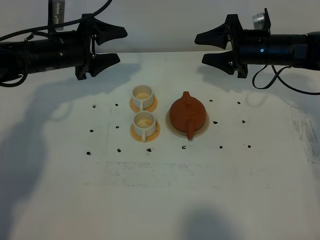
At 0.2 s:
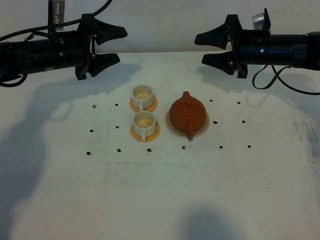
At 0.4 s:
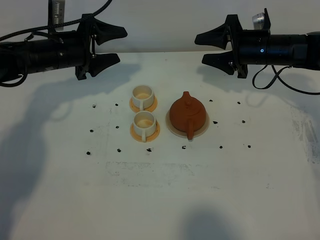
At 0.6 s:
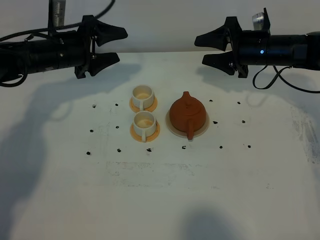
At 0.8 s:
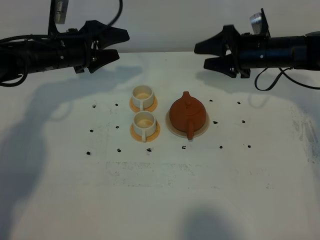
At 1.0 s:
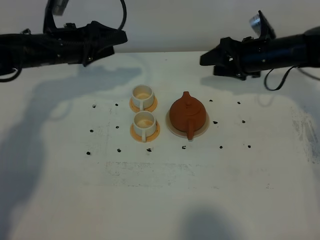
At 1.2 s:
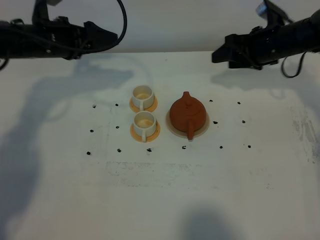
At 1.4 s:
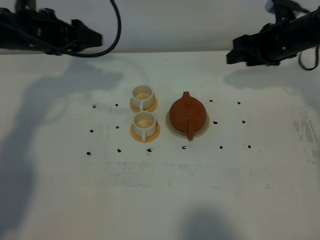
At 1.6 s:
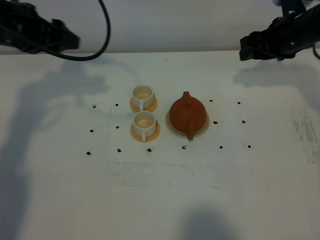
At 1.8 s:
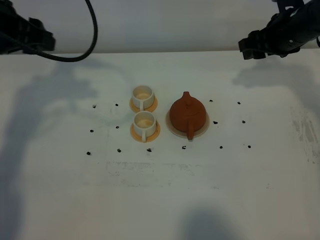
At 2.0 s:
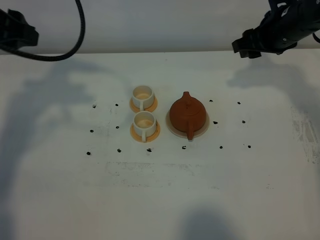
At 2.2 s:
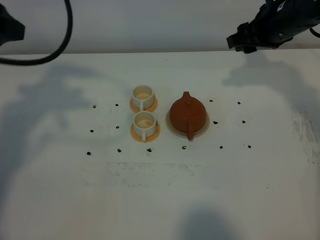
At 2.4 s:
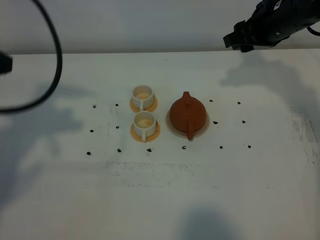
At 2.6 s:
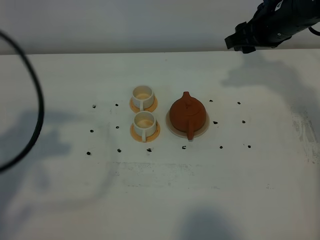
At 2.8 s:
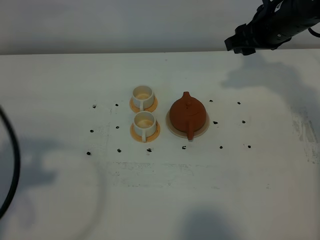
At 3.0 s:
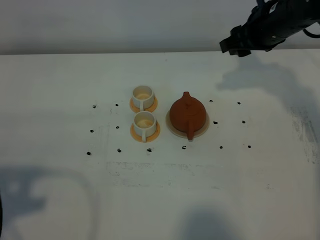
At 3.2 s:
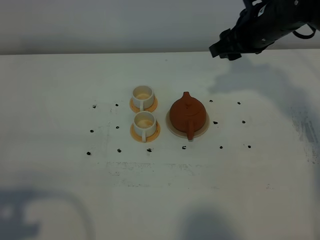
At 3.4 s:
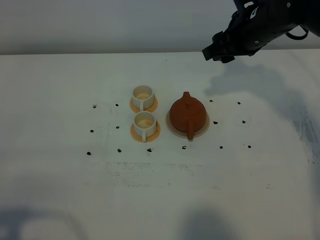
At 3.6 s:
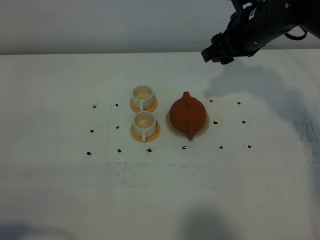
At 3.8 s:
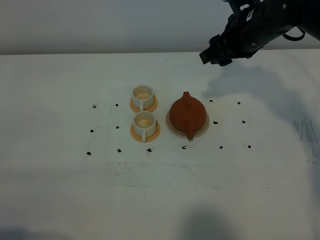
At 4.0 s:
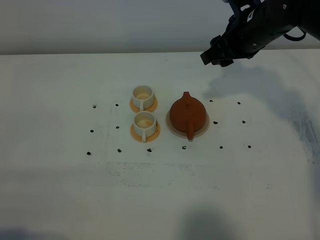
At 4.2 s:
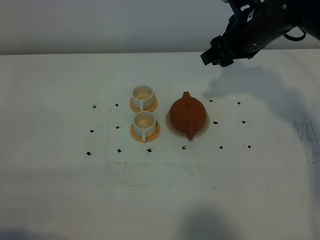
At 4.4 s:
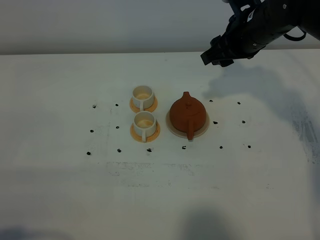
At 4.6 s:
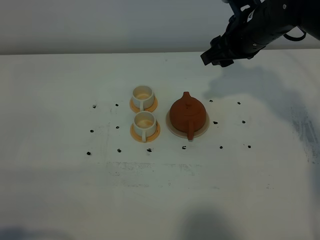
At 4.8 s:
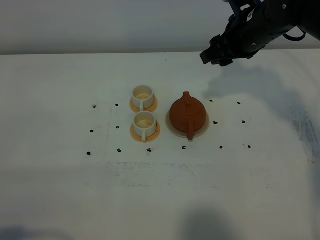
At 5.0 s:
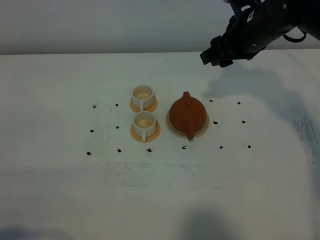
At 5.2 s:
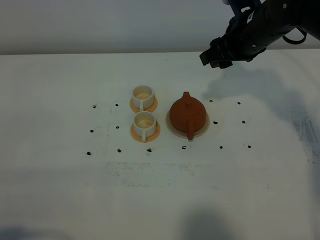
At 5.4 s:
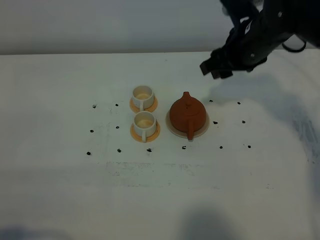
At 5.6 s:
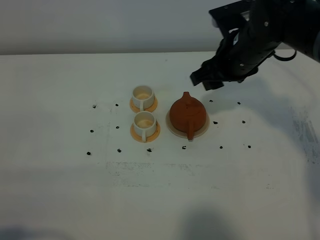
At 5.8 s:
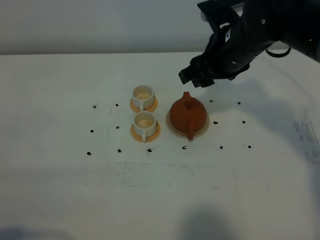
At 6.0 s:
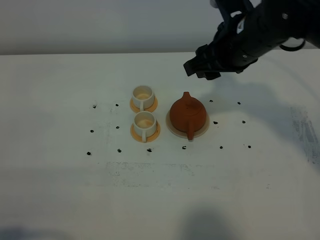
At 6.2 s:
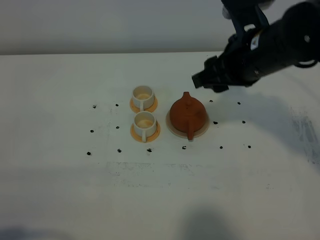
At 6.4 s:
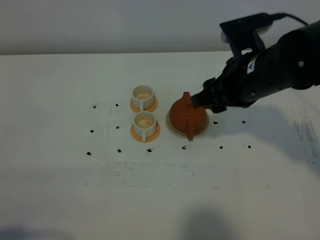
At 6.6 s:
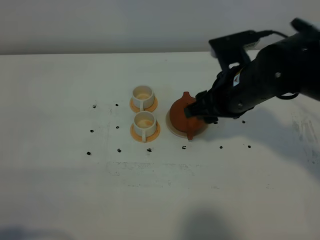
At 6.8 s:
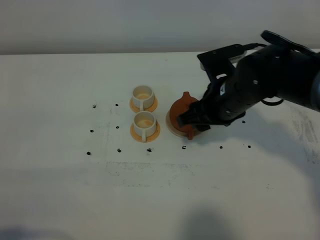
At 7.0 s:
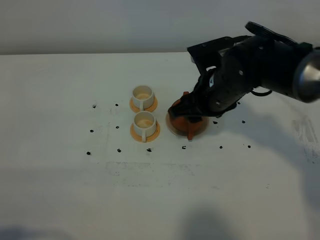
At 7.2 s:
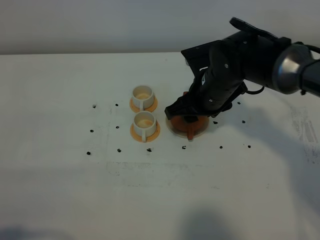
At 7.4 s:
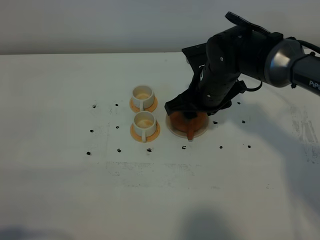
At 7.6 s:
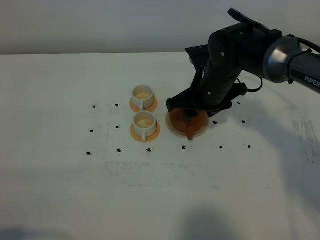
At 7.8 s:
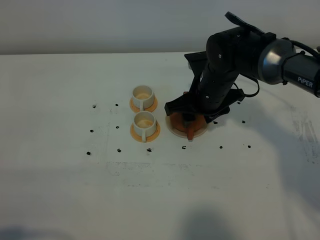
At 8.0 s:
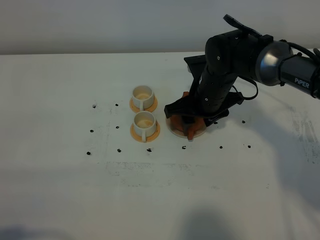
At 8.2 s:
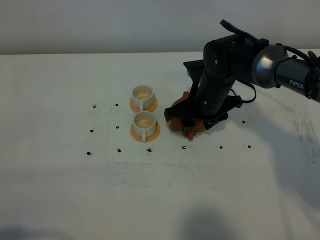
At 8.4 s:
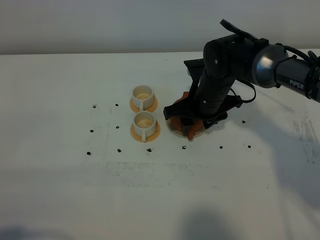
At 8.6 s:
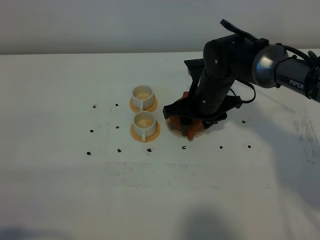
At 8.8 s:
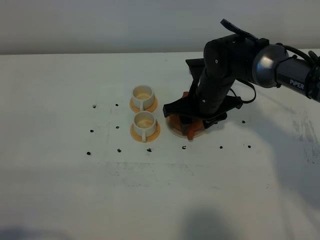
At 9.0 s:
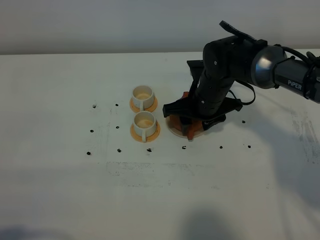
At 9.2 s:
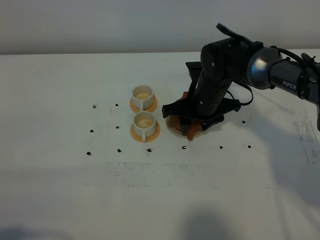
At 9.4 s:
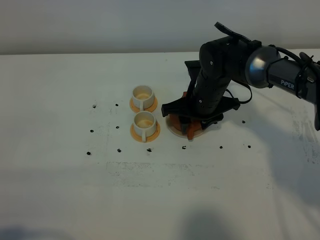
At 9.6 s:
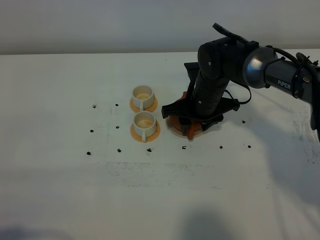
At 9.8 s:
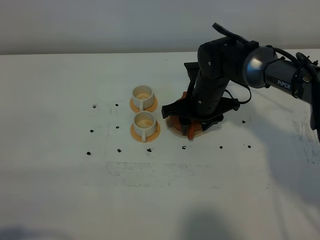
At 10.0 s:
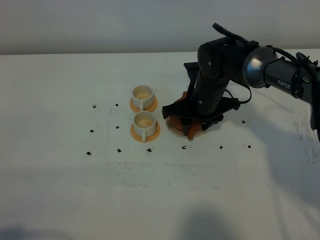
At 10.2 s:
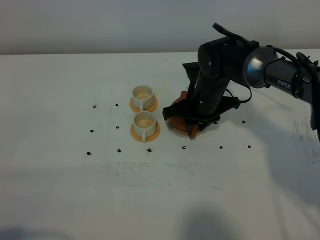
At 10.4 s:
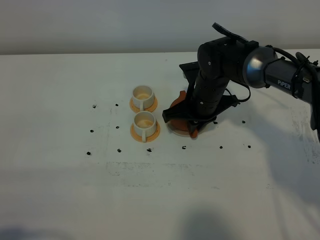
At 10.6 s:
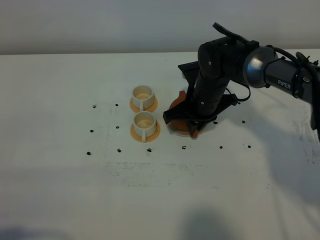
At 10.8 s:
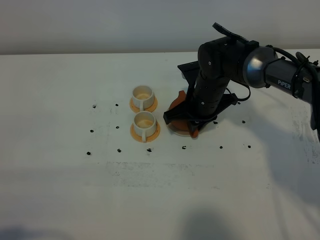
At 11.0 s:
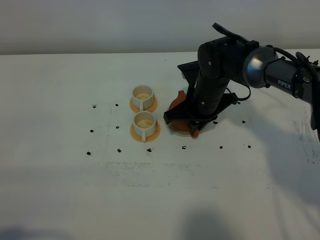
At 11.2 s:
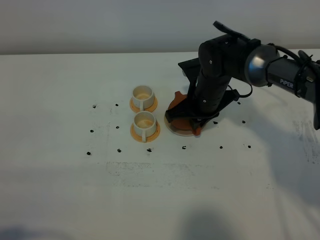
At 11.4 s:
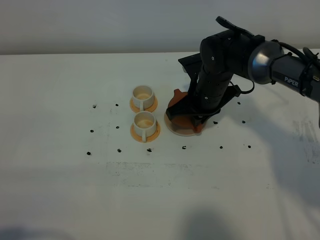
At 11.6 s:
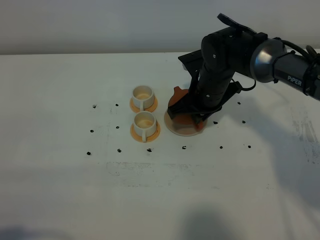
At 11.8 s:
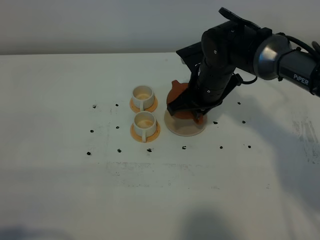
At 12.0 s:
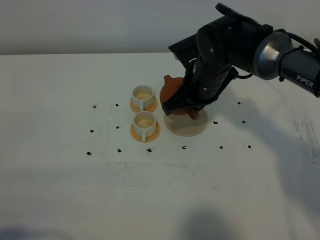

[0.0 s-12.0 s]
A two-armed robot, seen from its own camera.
Task of the whole recording: grasp the brown teapot and pour the tea into the two white teacups one by one, put the brown teapot back in its original place.
Step, 0.0 to 11.4 s: Pick up the teapot with the right gripper.
0.0 to 1.6 s: The left gripper heads upward and backward, covering roughly 15 cm, and closes its fingers. The right gripper moves upward, some 5 cm.
1.6 to 3.0 s: The left gripper is displaced backward by approximately 30 cm, while the right gripper is displaced to the left by roughly 5 cm.
3.0 to 4.4 s: The left gripper heads backward and downward, covering about 10 cm.
4.4 to 6.0 s: The right gripper moves backward, some 5 cm.
6.0 to 7.6 s: The right gripper shifts some 10 cm downward.
7.6 to 9.0 s: There are only small adjustments of the grippers.
9.0 to 10.4 s: The right gripper closes its fingers.
10.4 to 12.0 s: The right gripper moves upward, roughly 5 cm.

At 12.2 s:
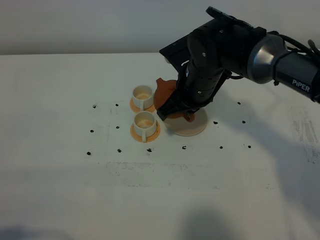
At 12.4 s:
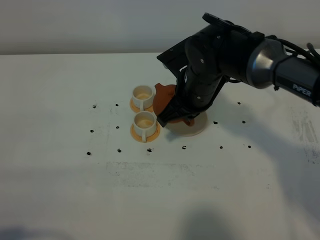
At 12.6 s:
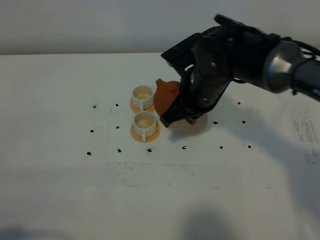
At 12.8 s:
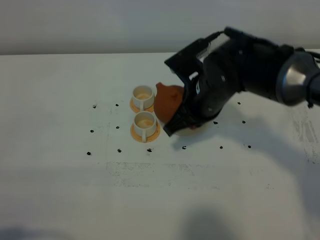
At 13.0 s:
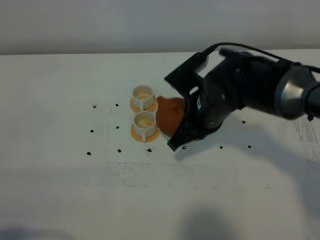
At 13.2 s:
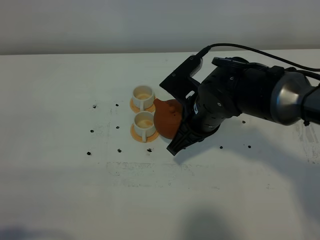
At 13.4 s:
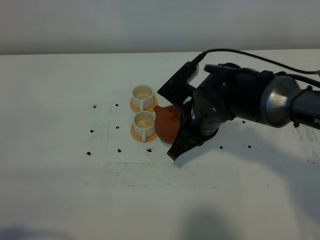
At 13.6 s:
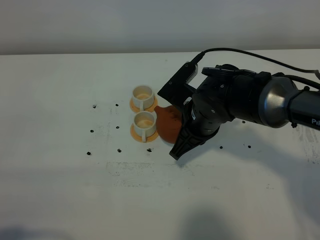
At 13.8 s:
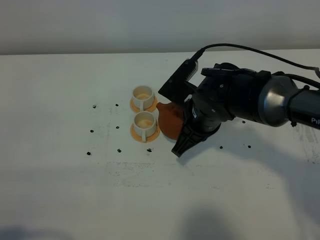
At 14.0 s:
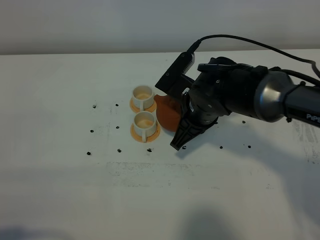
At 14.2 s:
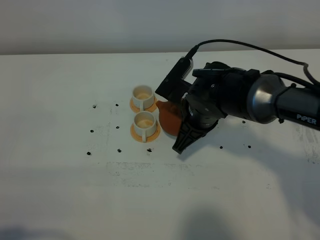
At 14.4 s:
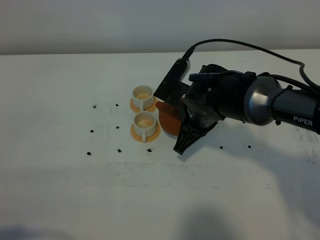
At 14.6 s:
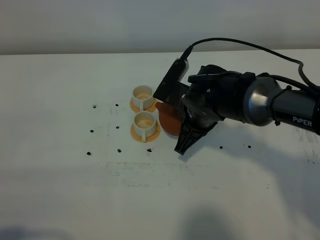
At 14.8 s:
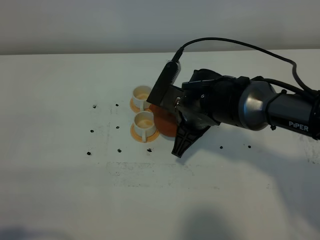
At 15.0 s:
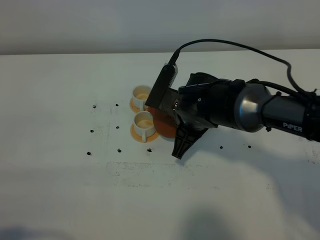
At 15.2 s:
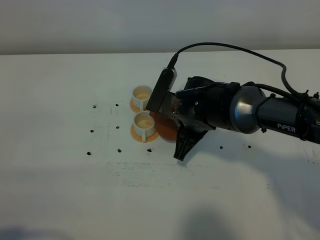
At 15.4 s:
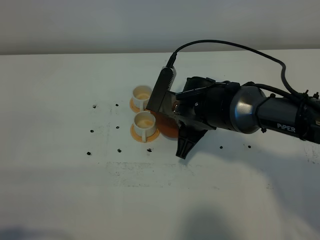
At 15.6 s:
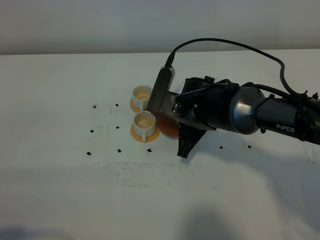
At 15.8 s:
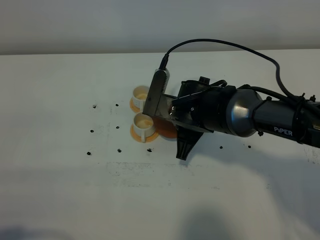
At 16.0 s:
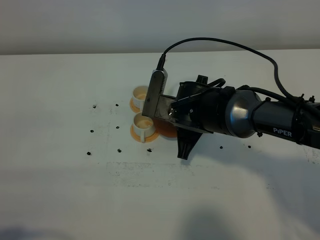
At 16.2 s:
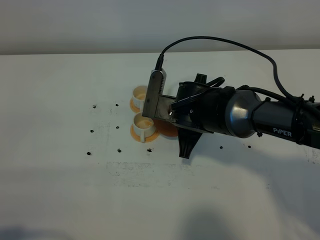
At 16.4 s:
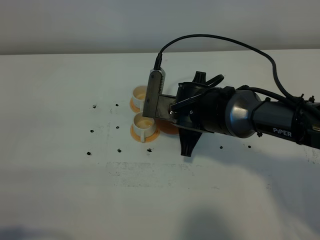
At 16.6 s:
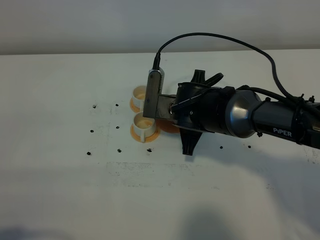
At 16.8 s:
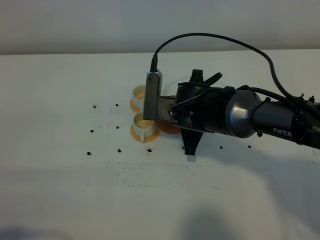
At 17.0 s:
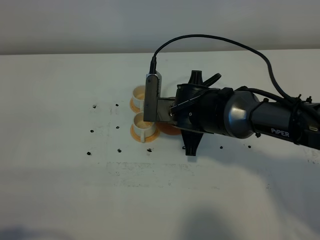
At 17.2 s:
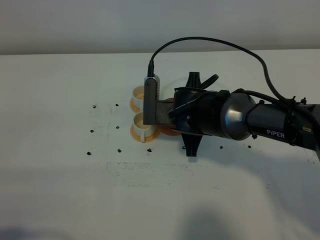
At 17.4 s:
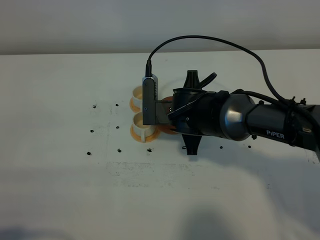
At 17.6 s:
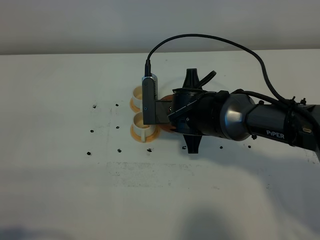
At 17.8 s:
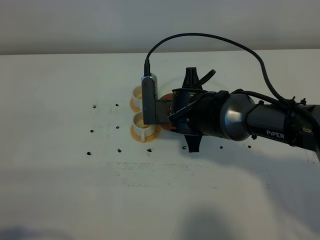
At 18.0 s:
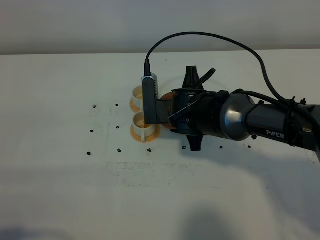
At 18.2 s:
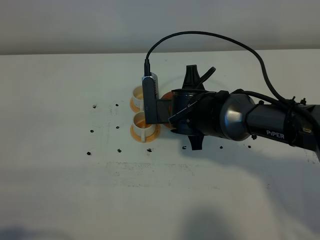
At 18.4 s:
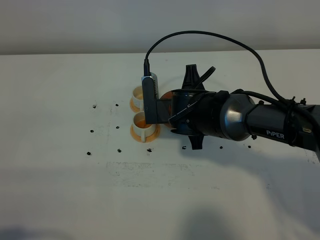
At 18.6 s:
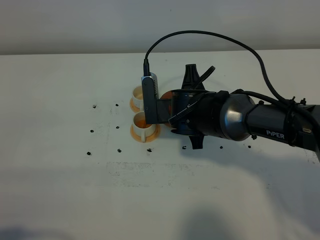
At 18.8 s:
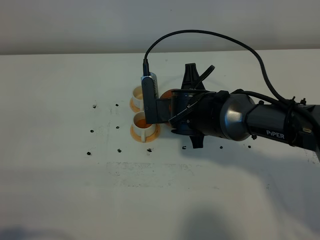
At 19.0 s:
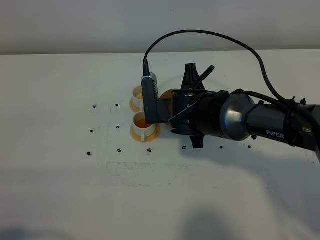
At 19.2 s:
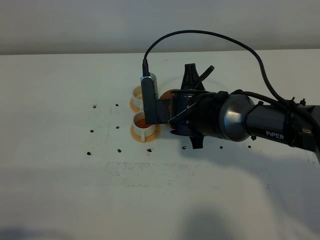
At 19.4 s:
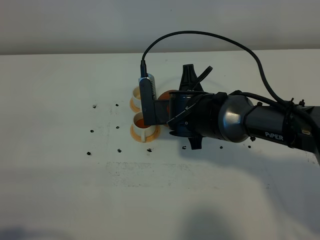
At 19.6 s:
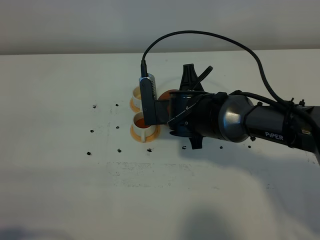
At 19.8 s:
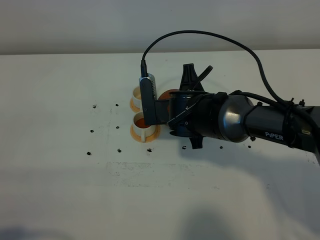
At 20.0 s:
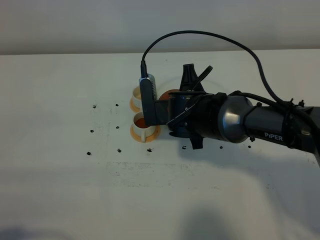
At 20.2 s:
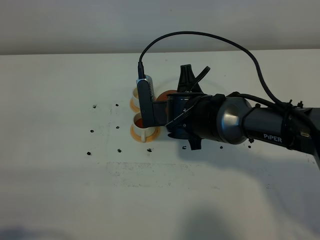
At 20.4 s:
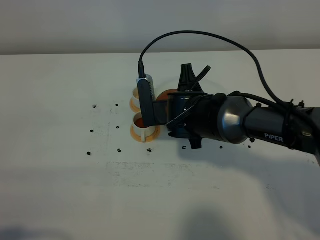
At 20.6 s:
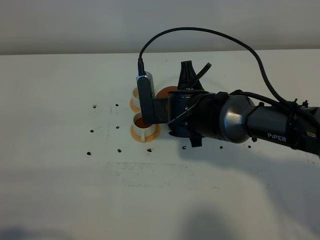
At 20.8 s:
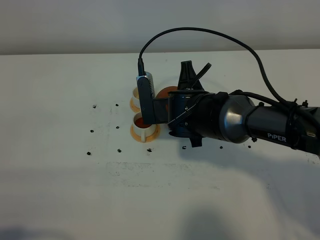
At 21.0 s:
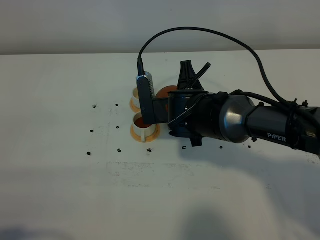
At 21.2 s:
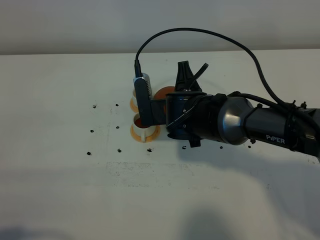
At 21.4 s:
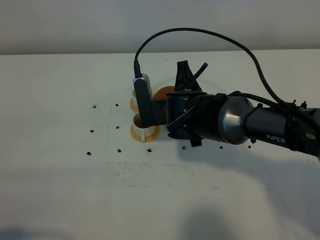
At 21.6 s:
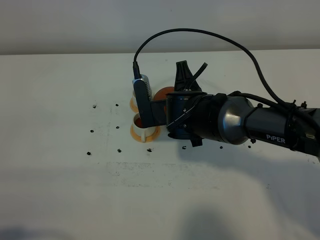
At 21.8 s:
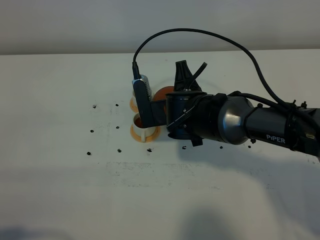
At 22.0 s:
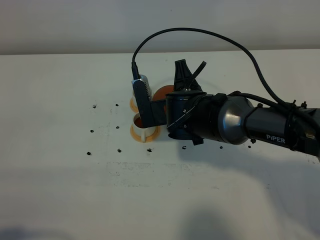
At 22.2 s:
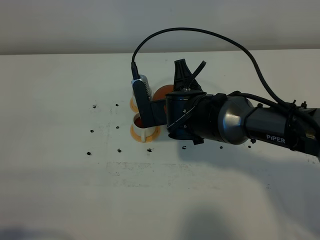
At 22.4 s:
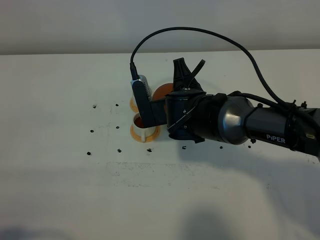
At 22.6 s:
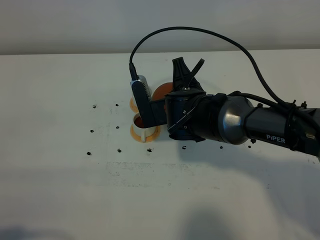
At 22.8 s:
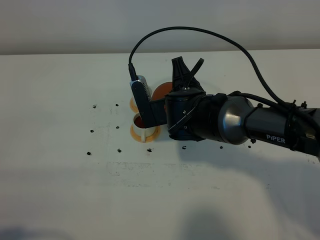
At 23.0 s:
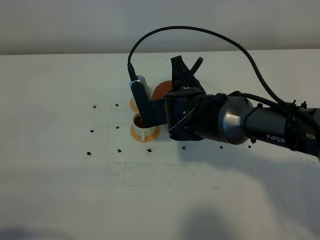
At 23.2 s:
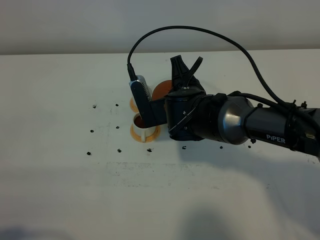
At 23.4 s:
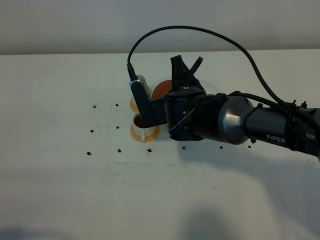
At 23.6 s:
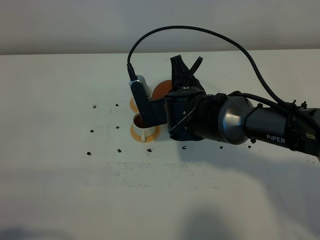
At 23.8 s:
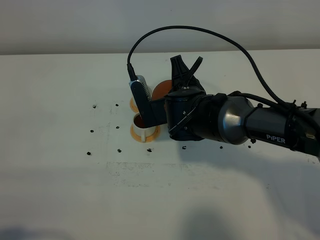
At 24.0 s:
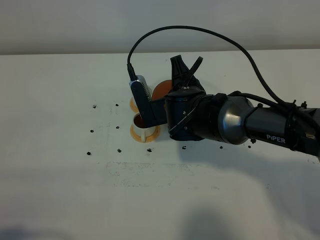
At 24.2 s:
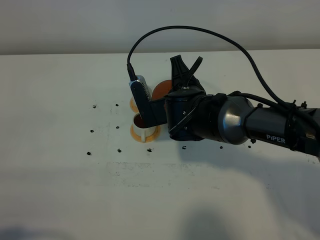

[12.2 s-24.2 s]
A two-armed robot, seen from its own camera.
Task of the whole recording: grasp the brown teapot and pour the tea into the two white teacups one by one, put the brown teapot back in its original place.
12.2 to 13.8 s: The right gripper moves some 5 cm.
13.8 to 15.2 s: There are only small adjustments of the grippers.
15.2 to 16.6 s: There are only small adjustments of the grippers.
16.6 to 18.2 s: There are only small adjustments of the grippers.
18.2 to 19.8 s: Both grippers stay about where they are.
19.8 to 21.2 s: The two grippers keep their place.
21.2 to 22.6 s: The grippers move only a little.
22.6 to 24.2 s: Both grippers stay about where they are.
